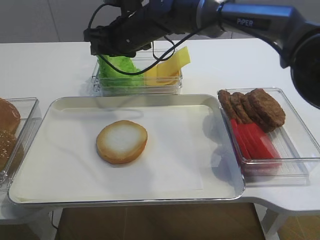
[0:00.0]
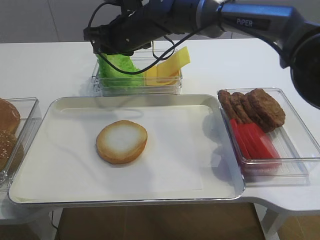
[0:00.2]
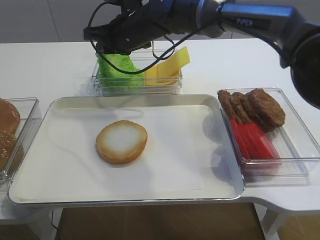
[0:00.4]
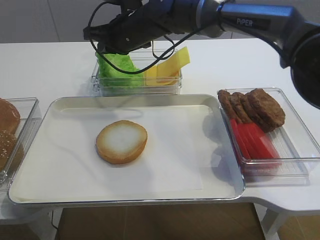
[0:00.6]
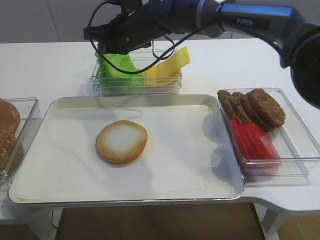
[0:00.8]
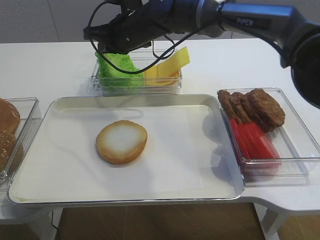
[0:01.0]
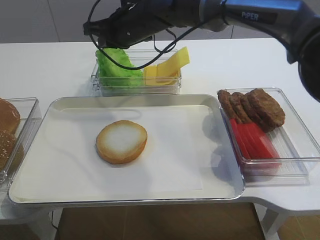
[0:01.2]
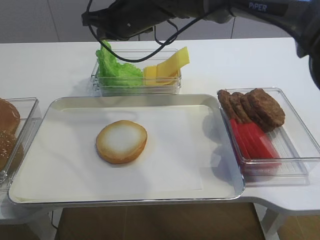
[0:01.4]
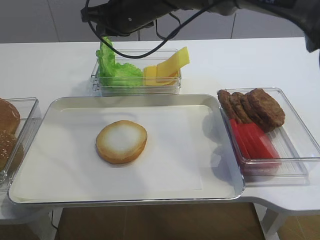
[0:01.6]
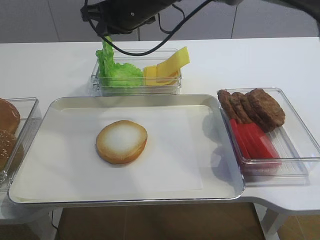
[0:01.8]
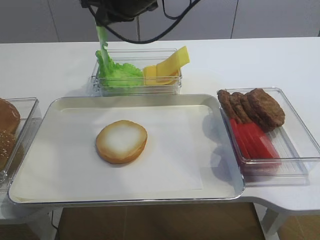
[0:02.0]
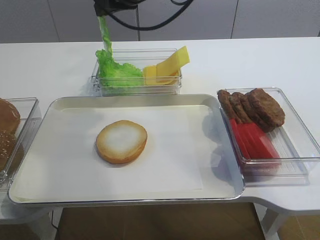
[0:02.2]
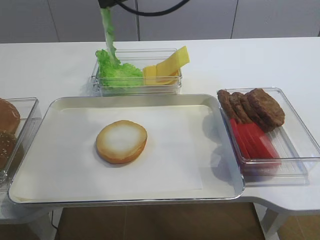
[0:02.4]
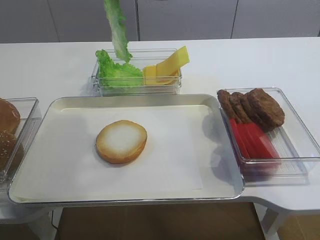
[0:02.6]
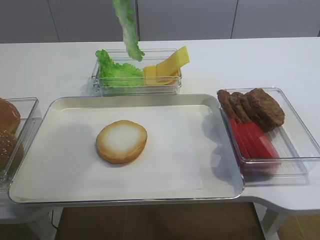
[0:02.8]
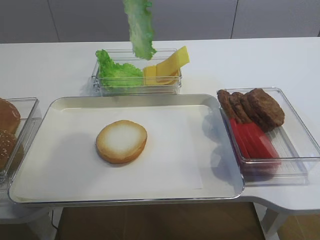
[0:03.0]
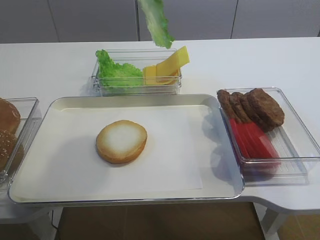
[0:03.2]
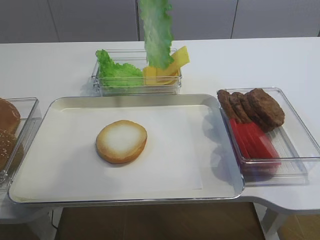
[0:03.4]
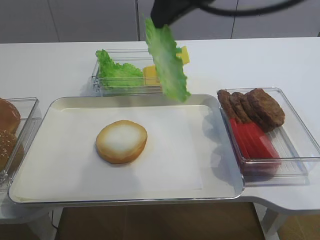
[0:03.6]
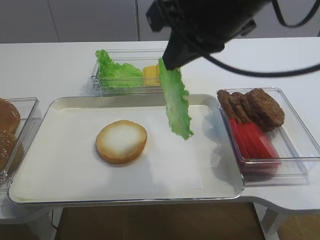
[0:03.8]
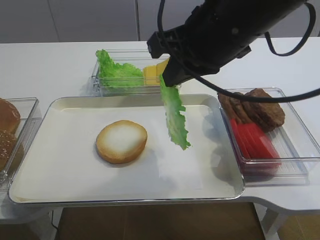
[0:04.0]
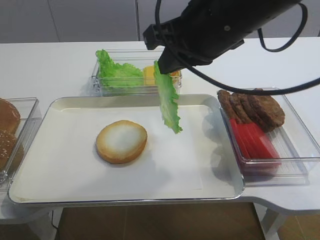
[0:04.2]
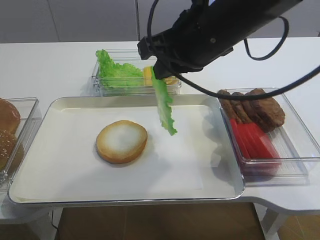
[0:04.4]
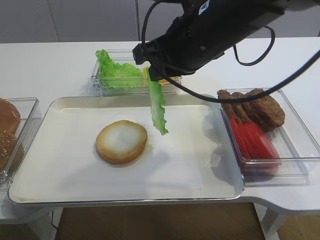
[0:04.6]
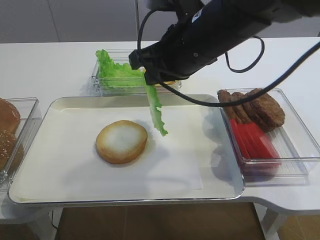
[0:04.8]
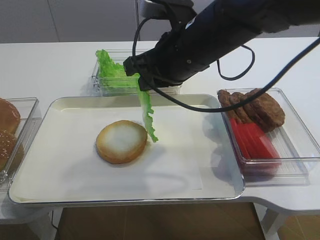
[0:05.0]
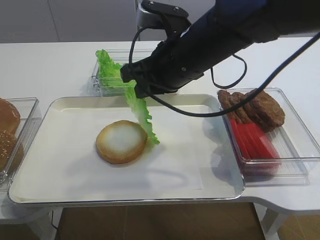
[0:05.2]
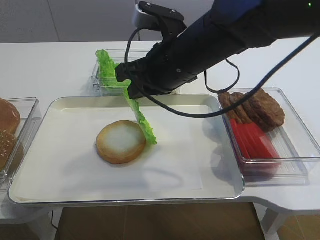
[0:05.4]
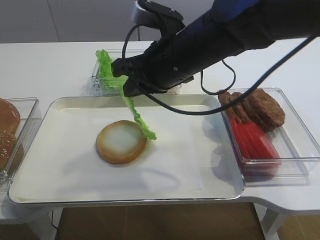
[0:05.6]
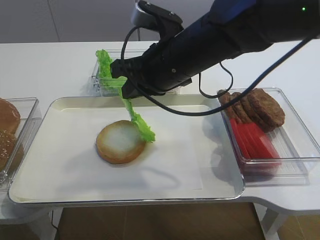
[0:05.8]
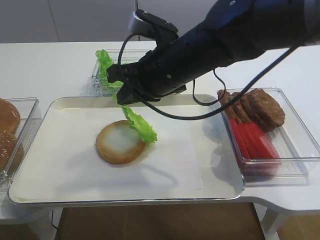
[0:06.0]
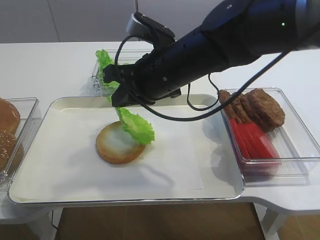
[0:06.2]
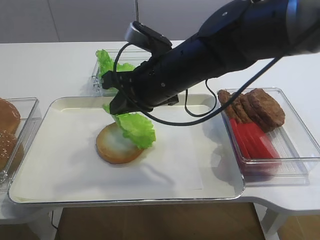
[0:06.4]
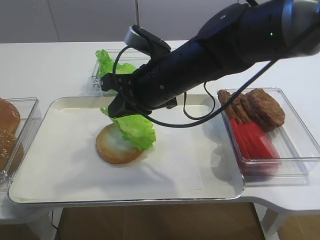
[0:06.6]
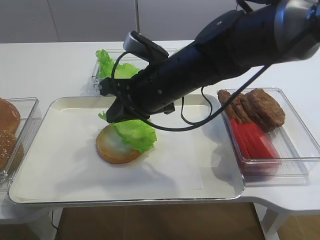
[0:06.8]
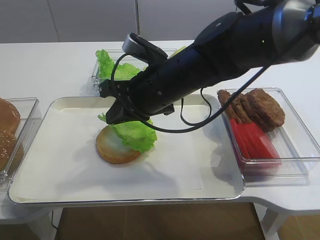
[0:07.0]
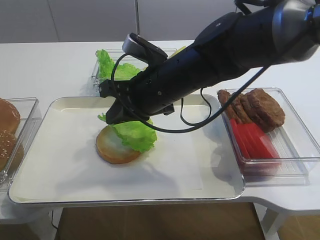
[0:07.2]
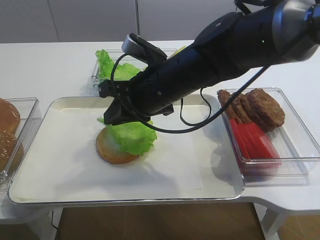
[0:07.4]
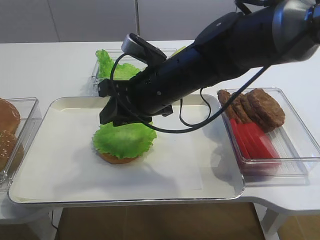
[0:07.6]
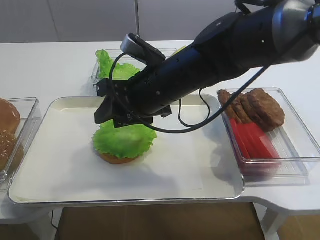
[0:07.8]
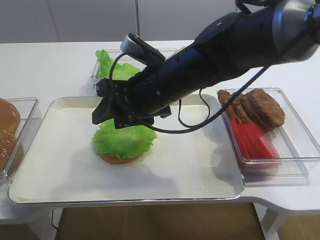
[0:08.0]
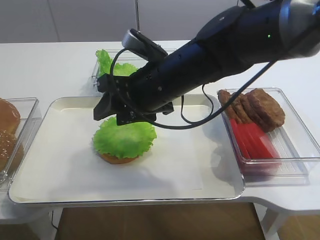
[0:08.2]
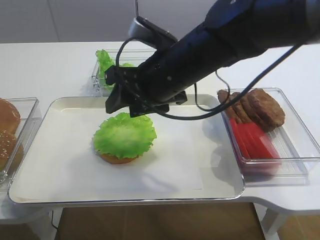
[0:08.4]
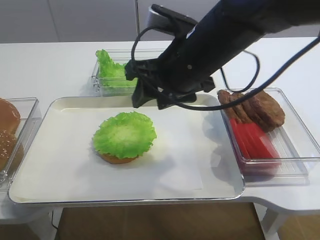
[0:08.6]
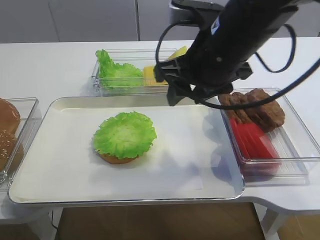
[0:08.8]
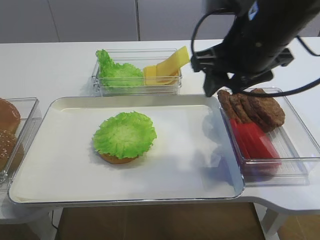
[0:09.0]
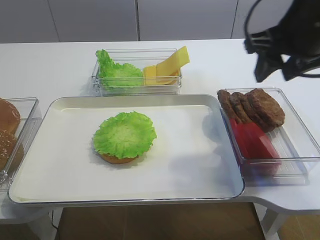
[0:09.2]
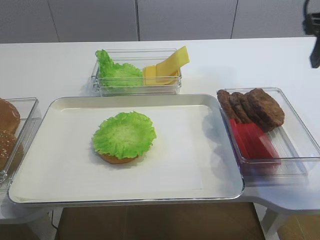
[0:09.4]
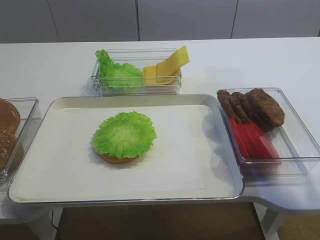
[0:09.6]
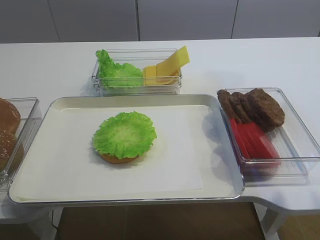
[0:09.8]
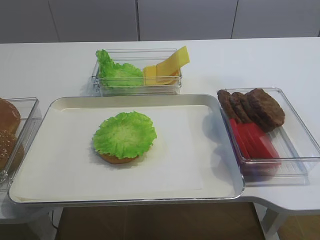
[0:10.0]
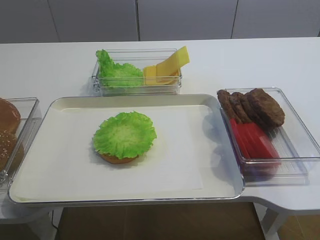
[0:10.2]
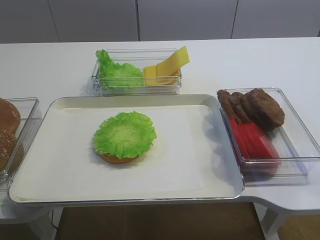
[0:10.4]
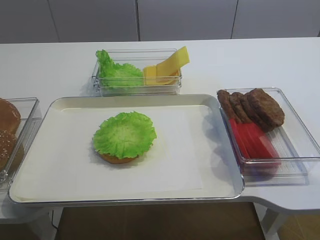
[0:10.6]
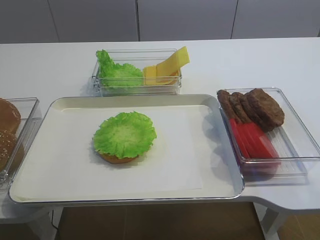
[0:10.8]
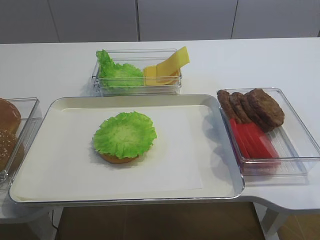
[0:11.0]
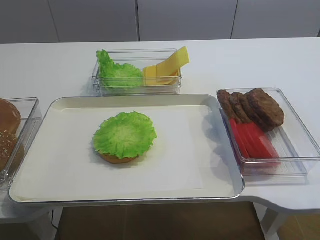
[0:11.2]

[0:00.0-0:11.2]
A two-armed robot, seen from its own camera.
Step, 0:01.6 to 0:07.8: Place the lettuce leaf on the bread slice with the right gripper.
0:00.0 to 0:01.6: The right gripper closes.
0:01.6 to 0:03.2: The right gripper goes approximately 25 cm upward, backward and to the right.
0:03.2 to 0:04.8: The right gripper goes about 15 cm downward.
0:04.8 to 0:06.4: The right gripper shifts roughly 5 cm downward.
0:06.4 to 0:08.0: The right gripper opens its fingers.
0:08.0 to 0:09.6: The right gripper travels to the right and upward by some 30 cm.
0:09.6 to 0:11.2: The right gripper heads backward, covering about 30 cm.

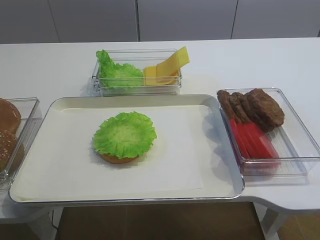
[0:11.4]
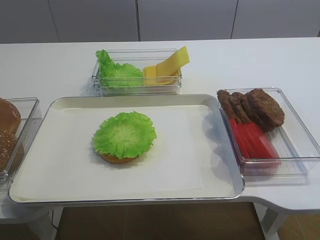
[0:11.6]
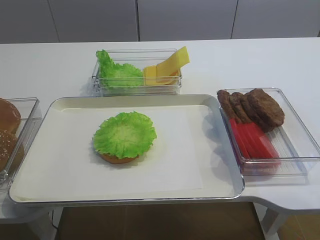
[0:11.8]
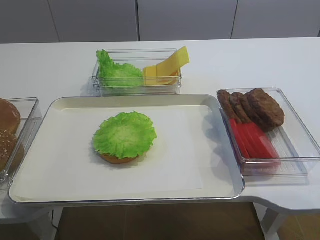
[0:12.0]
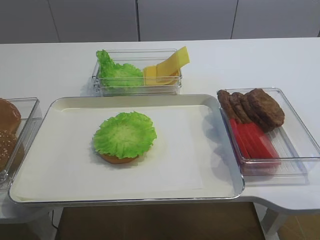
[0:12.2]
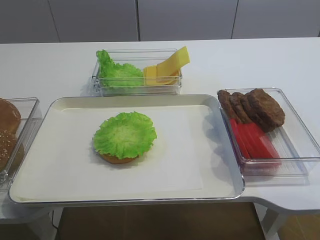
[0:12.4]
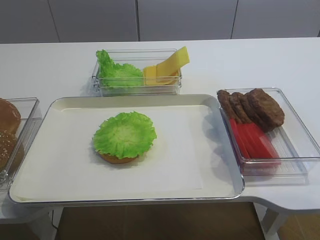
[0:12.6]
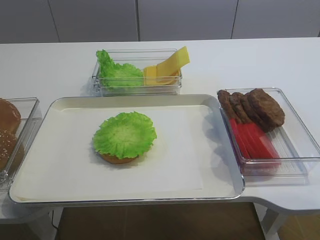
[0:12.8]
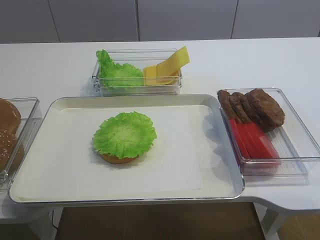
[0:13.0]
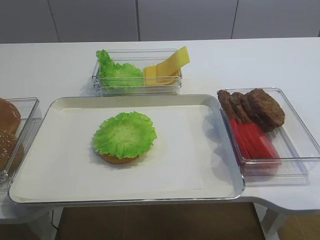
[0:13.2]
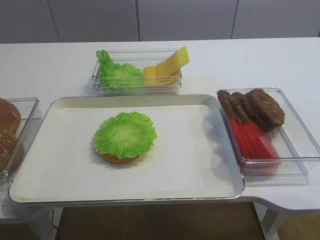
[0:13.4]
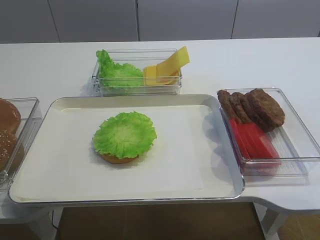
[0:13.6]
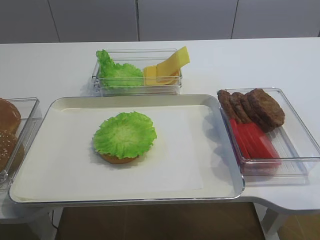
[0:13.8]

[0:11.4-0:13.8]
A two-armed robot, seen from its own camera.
0:12.6 to 0:13.8: Both grippers stay put.
